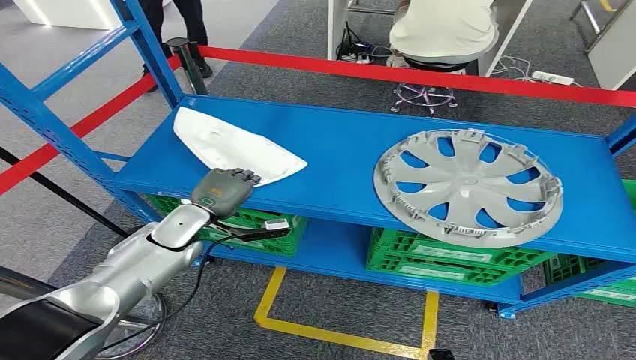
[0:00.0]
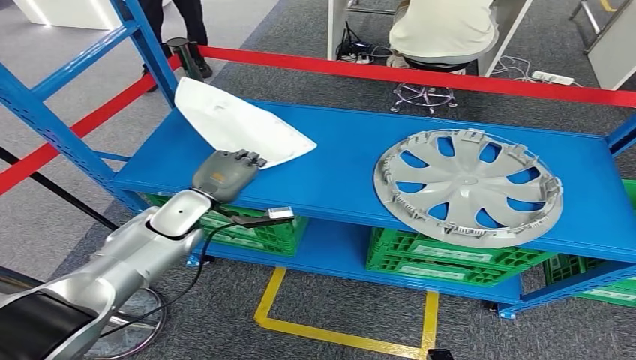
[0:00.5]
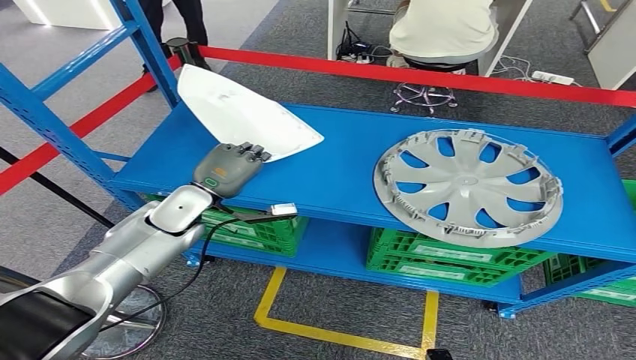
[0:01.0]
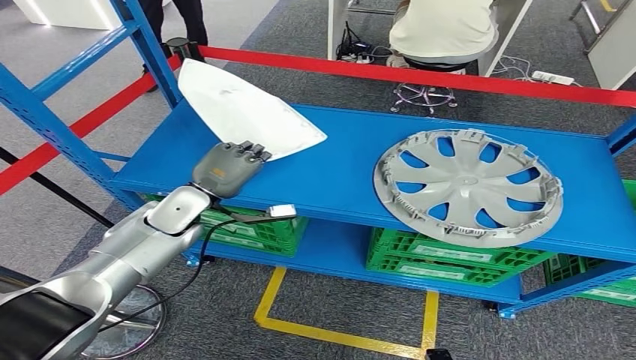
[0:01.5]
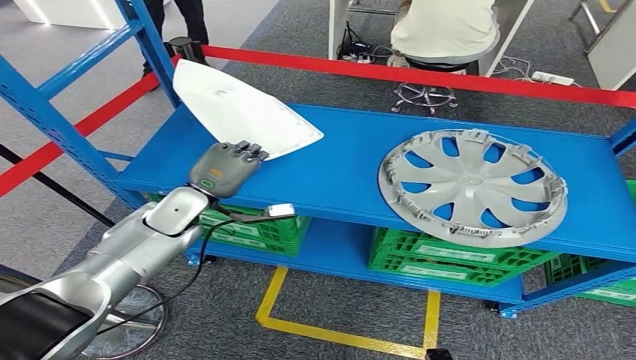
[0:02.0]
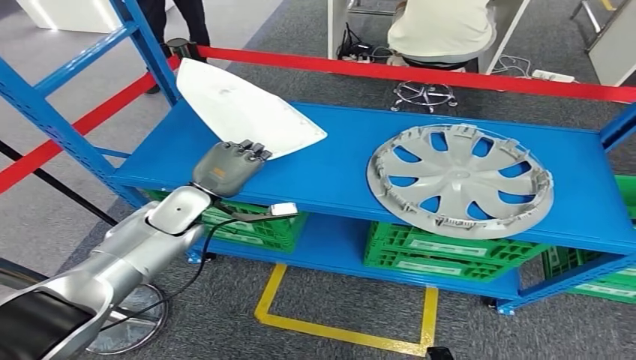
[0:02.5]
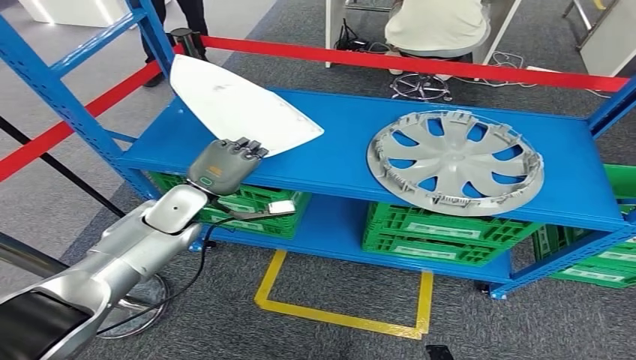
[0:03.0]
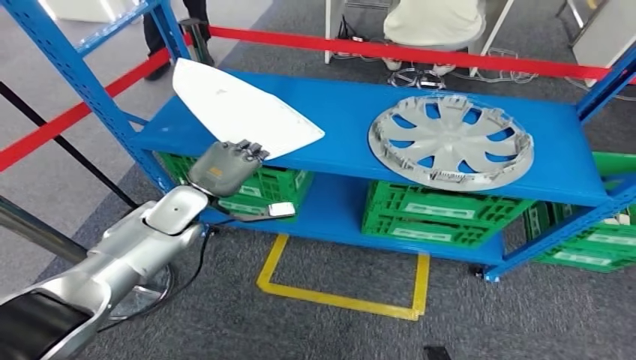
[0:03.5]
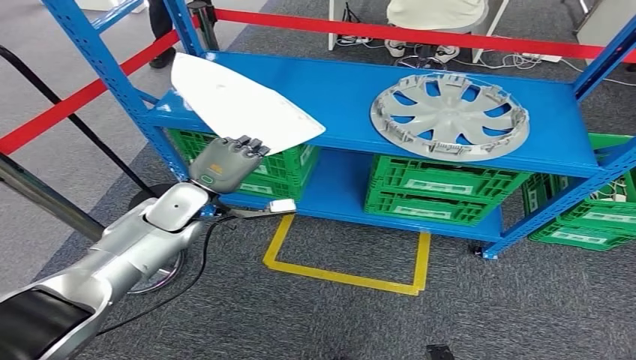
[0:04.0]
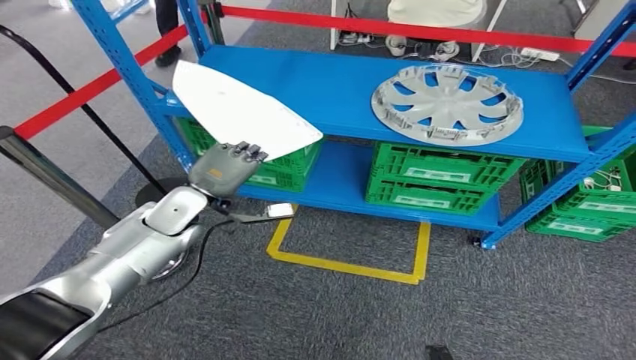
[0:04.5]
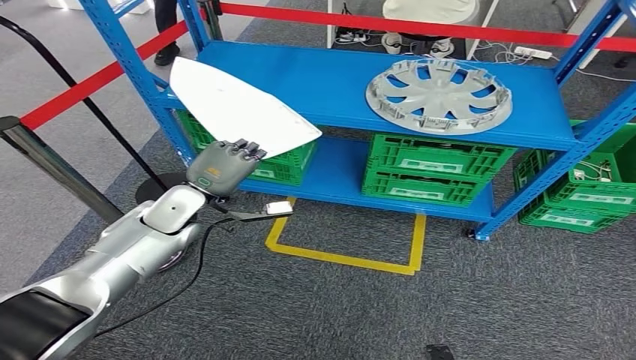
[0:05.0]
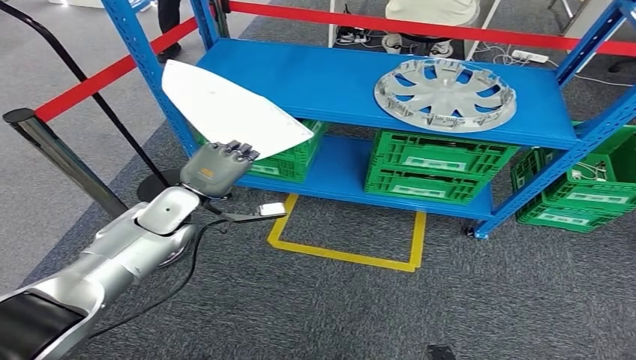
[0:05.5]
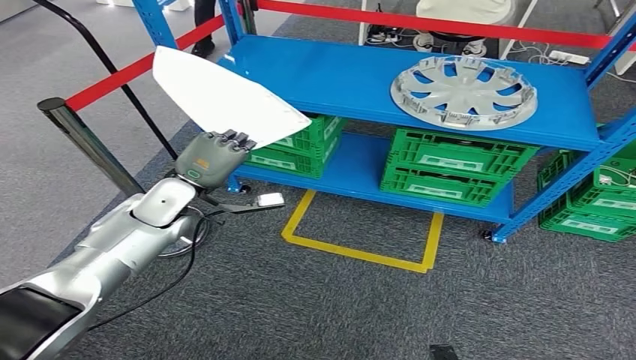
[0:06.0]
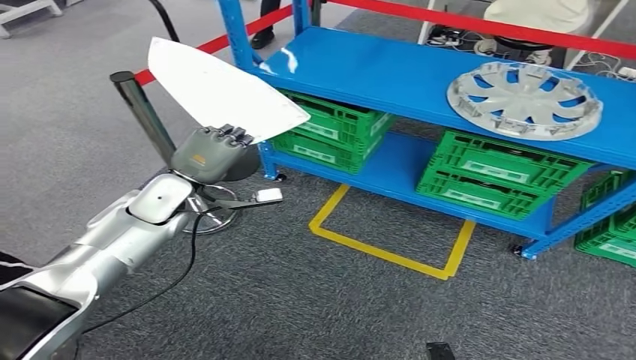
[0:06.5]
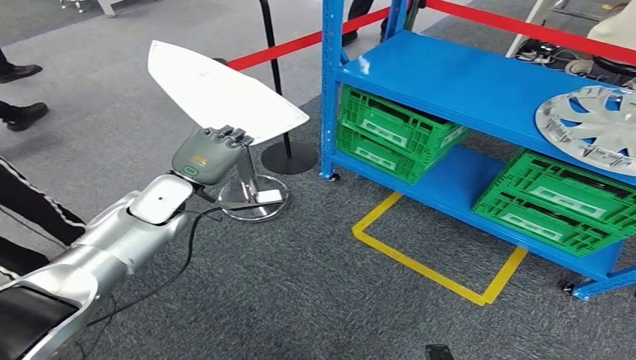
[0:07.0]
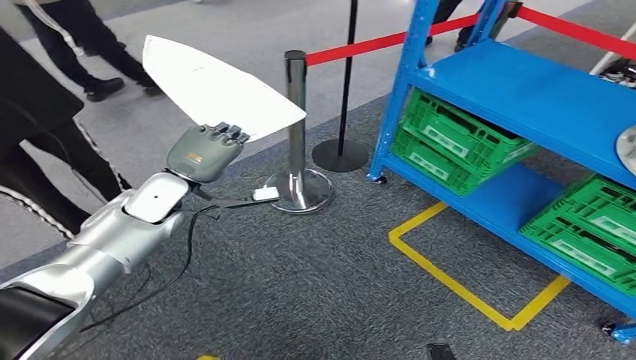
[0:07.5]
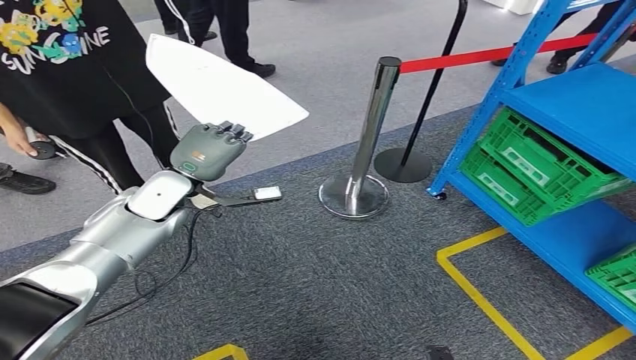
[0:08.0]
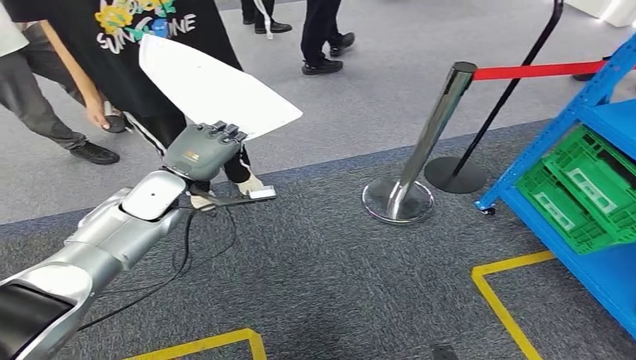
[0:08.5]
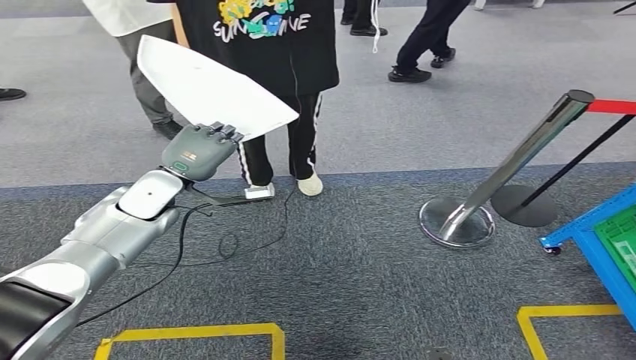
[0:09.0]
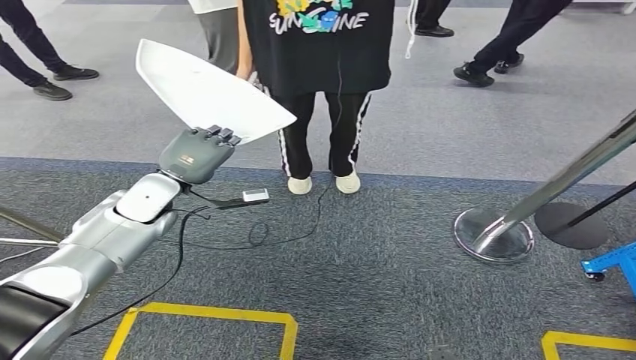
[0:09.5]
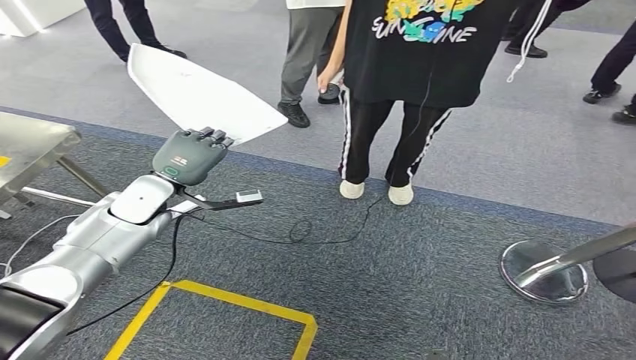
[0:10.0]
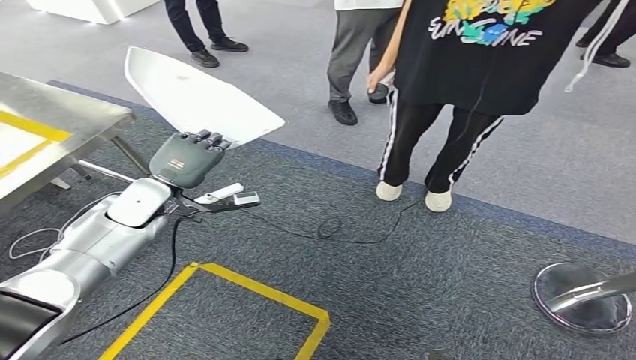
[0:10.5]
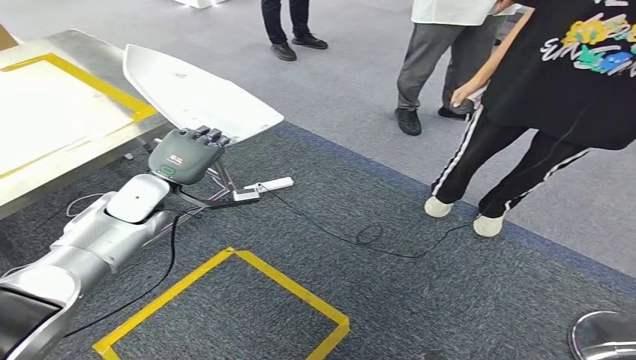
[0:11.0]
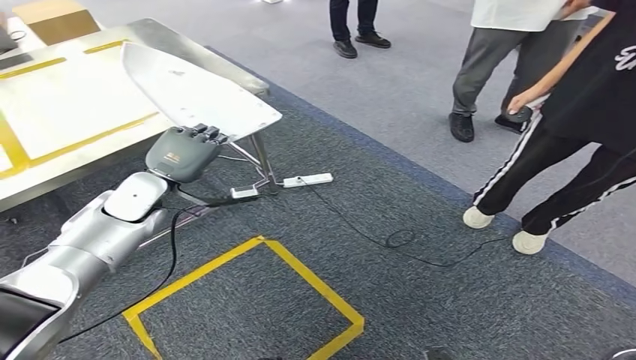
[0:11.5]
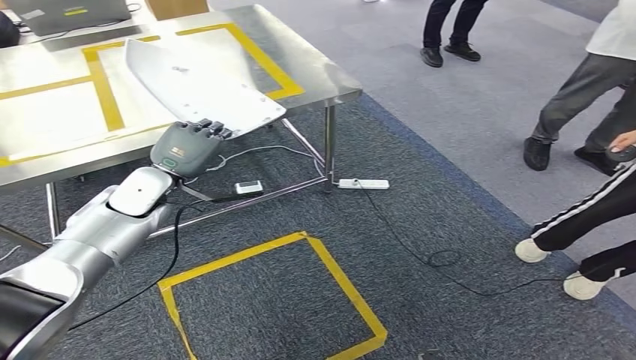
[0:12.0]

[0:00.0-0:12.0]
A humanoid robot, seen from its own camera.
Step, 0:00.0 to 0:02.5: Take small components from the rack.

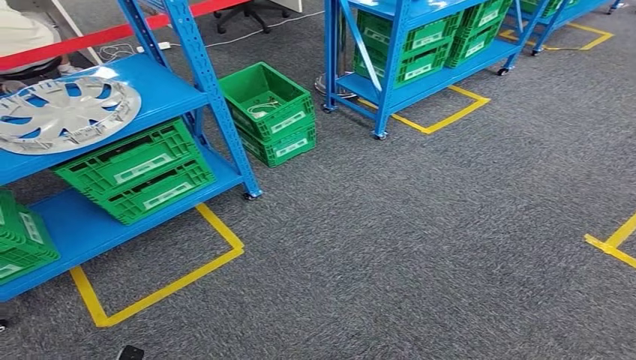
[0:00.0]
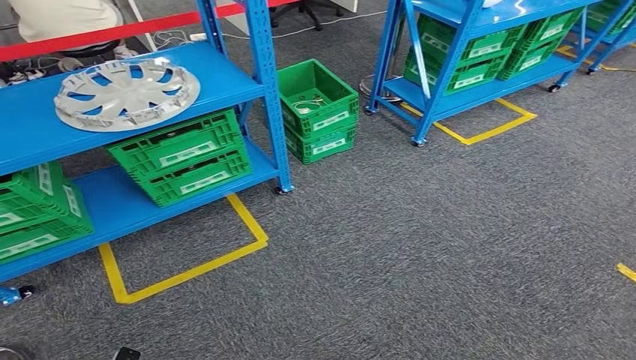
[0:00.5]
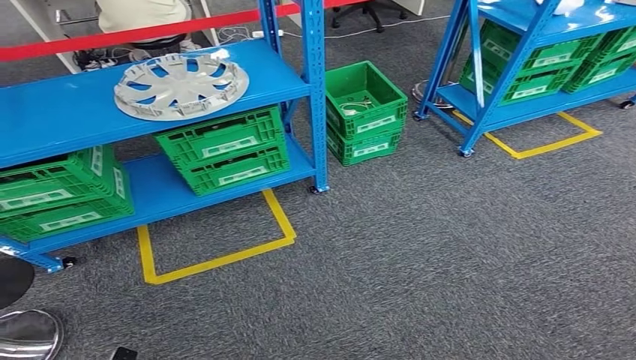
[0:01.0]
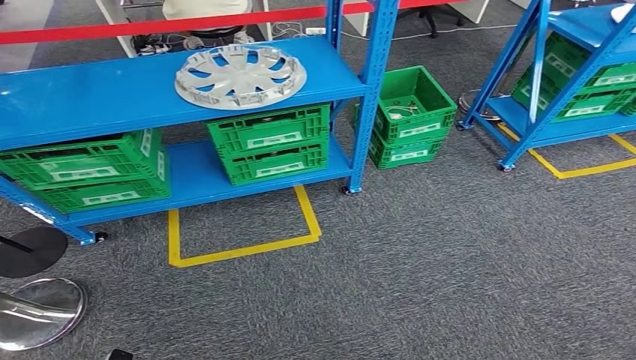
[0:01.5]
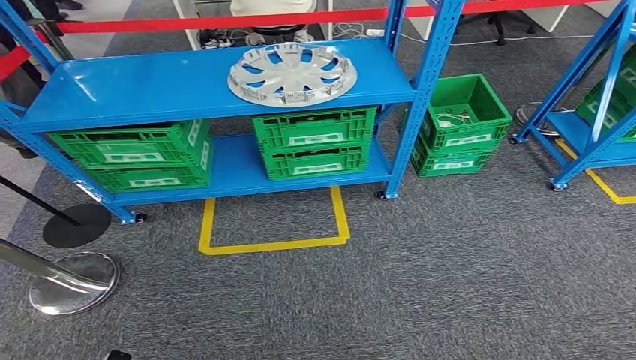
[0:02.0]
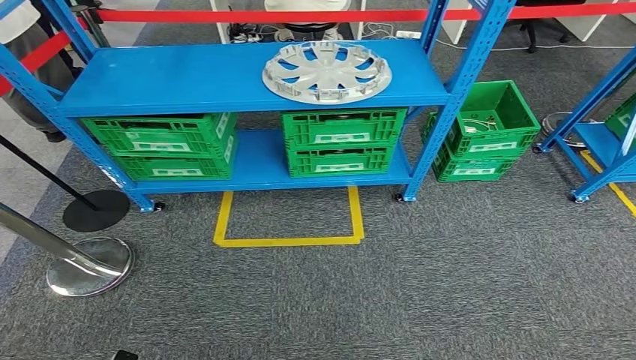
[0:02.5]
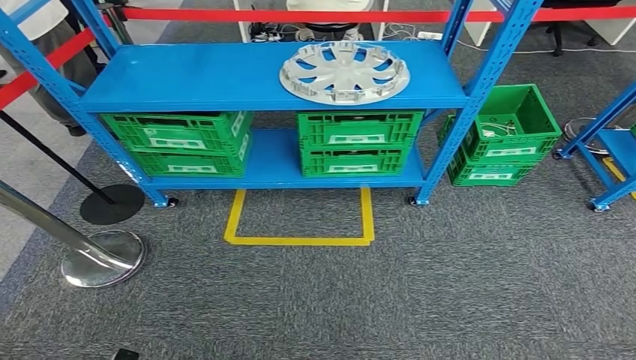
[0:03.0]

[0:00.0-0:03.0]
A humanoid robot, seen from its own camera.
Step, 0:00.0 to 0:03.0: Move to the initial position of the workbench.
